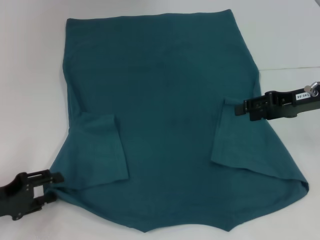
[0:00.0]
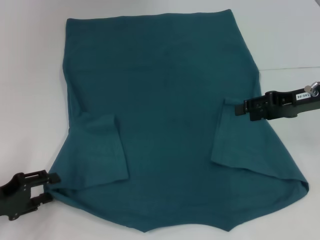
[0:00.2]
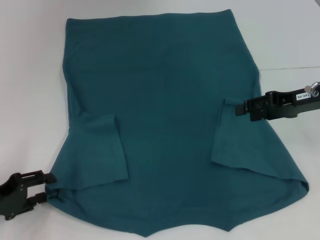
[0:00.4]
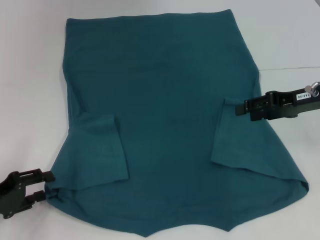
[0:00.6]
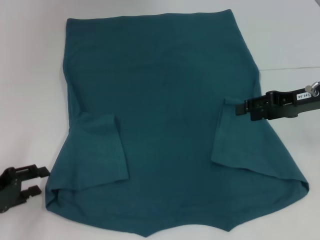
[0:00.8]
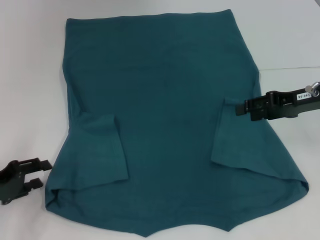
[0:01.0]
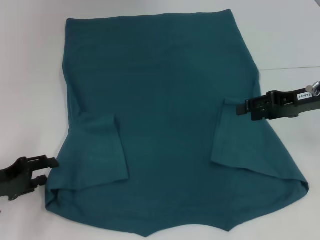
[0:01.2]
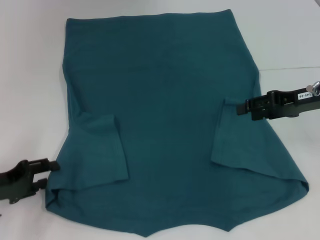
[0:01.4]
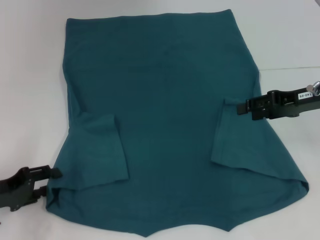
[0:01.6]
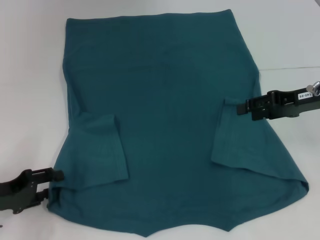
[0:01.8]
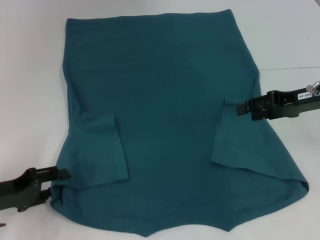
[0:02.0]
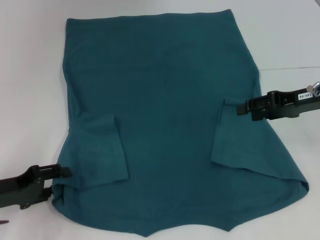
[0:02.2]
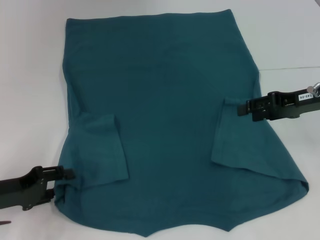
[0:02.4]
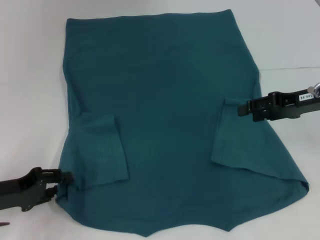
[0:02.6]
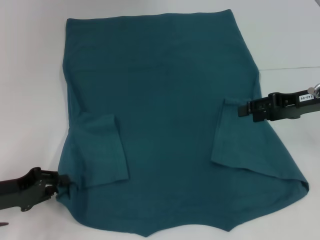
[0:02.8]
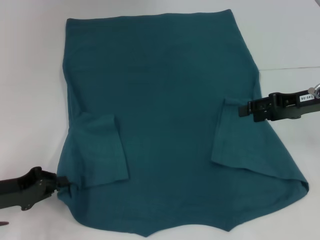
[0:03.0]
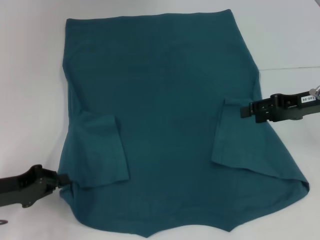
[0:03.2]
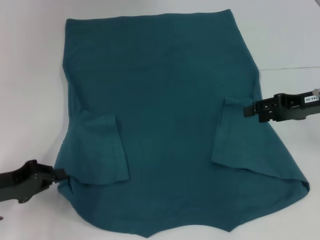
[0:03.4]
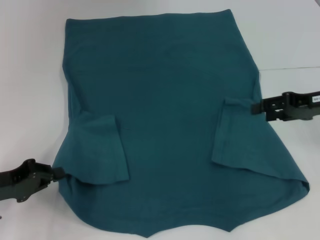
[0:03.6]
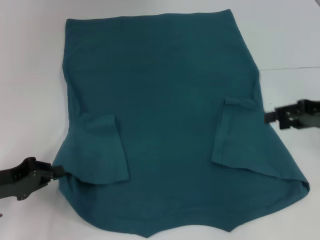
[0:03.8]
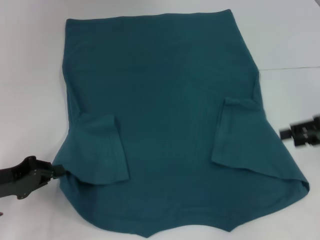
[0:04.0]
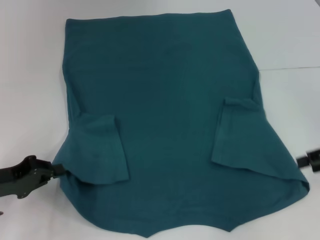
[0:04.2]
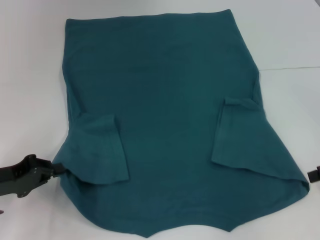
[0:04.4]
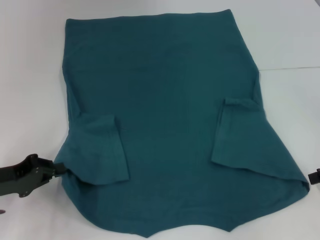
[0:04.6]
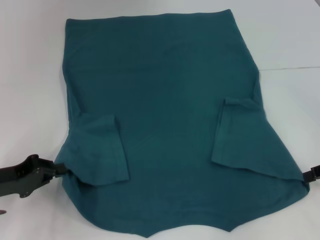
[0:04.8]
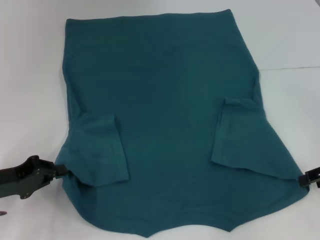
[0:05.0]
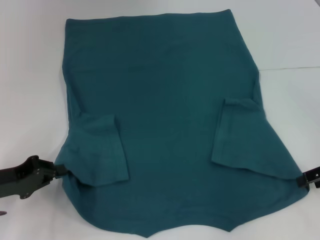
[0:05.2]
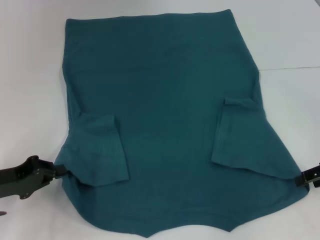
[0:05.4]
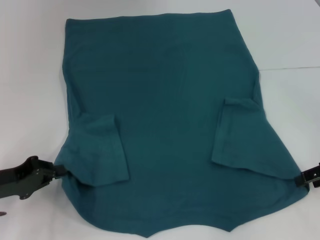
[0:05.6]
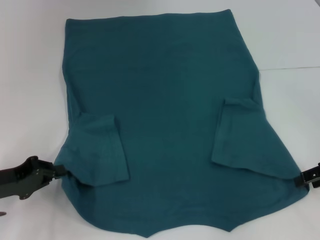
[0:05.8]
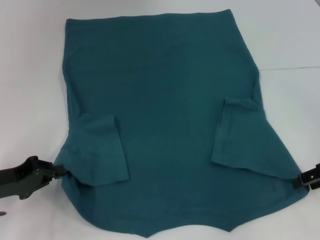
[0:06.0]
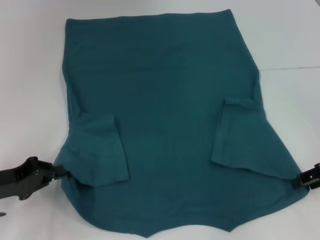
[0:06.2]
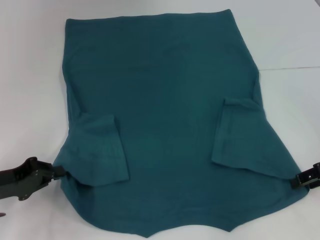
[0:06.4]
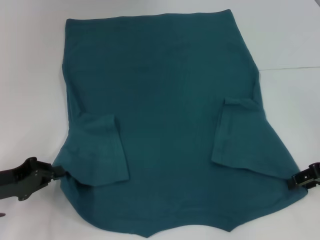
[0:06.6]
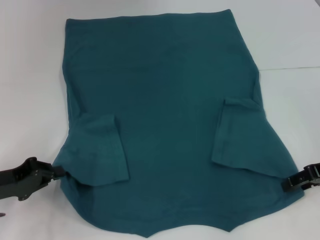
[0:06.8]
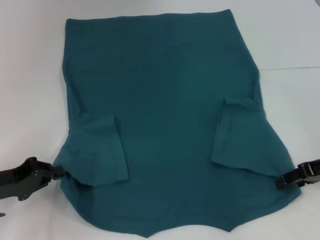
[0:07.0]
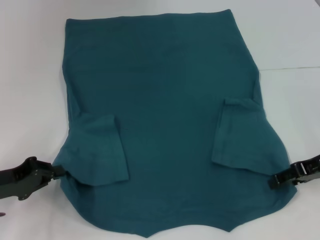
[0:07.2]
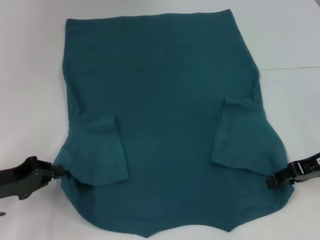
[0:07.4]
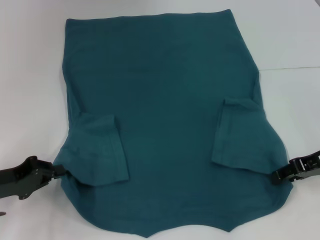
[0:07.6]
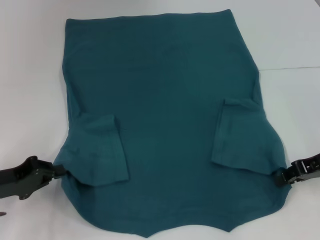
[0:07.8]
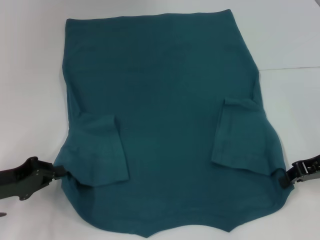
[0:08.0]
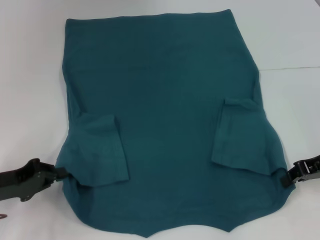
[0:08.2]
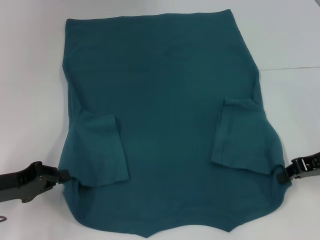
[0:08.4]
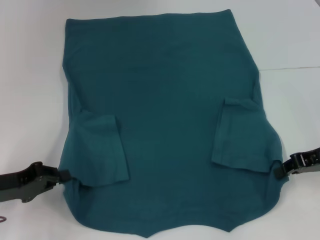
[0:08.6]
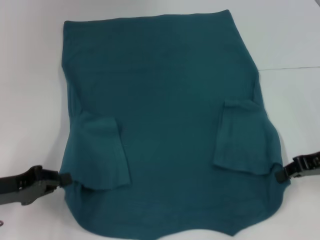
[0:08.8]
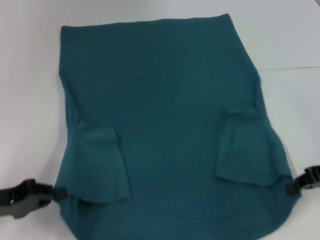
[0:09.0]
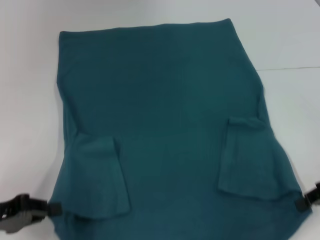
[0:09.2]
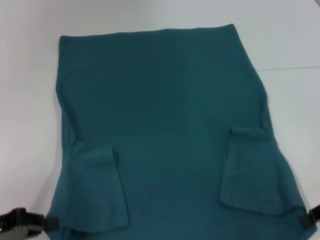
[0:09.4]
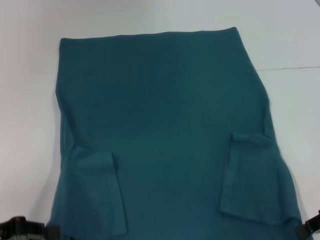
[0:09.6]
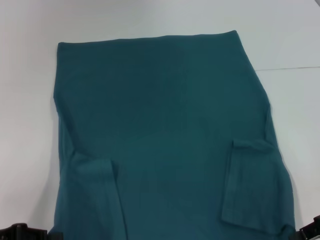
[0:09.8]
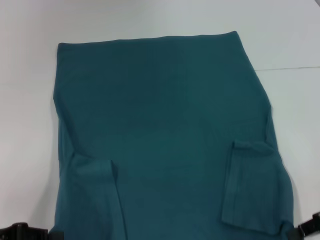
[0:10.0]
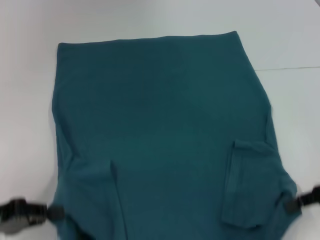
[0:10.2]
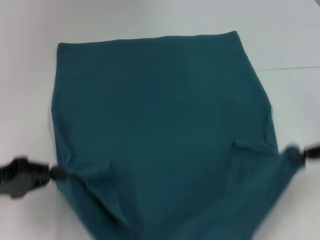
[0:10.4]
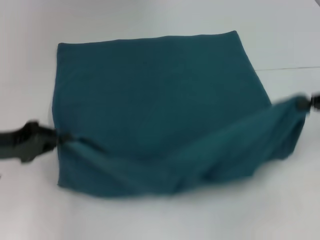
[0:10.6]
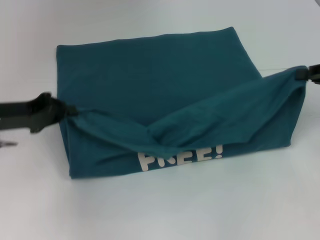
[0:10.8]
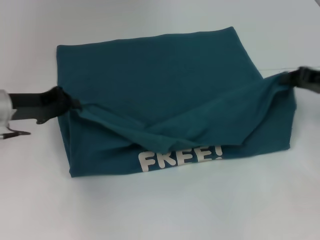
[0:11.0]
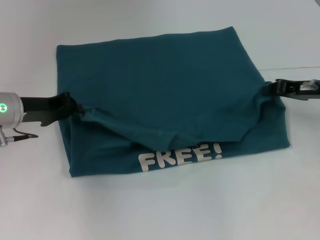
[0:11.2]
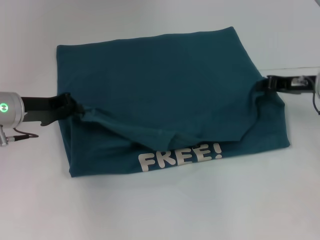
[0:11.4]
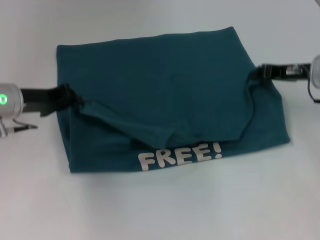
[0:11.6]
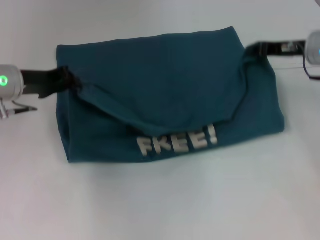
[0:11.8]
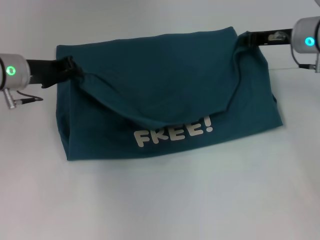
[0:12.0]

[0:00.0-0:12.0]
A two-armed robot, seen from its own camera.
Step, 0.0 to 3.0 s: Grab the bottom left corner with your left hand.
Step, 3.2 to 8.4 s: Grab the bottom right corner with your right hand.
0.0 to 3.0 s: The grippers stay close to where they were, moving slightly.
3.0 to 4.4 s: The right gripper heads to the right and backward, covering about 10 cm.
4.4 to 6.0 s: The grippers stay close to where they were, moving slightly.
6.0 to 7.6 s: The grippers stay close to where they were, moving slightly.
7.6 to 9.0 s: The right gripper closes.
9.0 to 10.4 s: There are only small adjustments of the grippers.
10.4 to 12.0 s: The right gripper travels forward and to the left by about 20 cm, while the left gripper is displaced forward and to the right by roughly 20 cm.

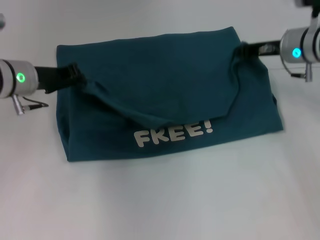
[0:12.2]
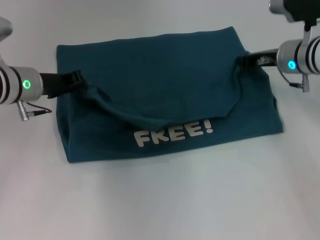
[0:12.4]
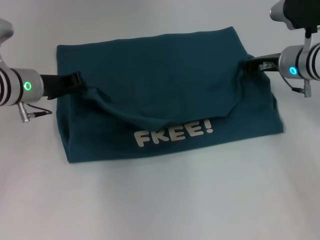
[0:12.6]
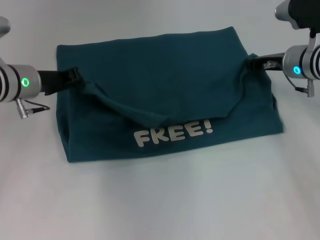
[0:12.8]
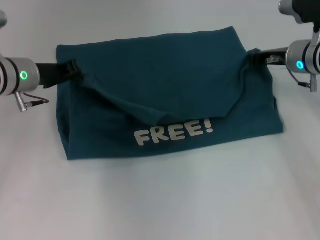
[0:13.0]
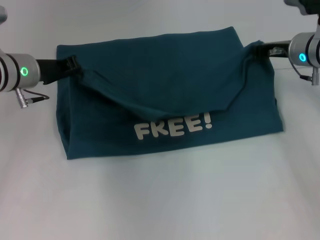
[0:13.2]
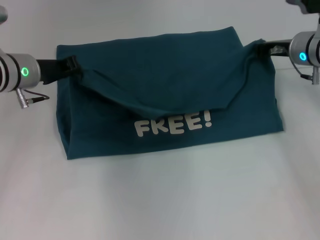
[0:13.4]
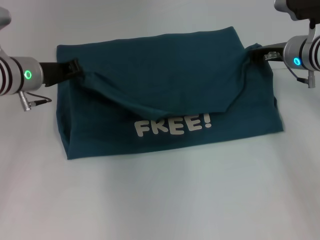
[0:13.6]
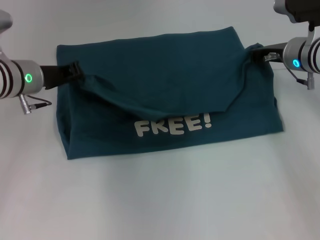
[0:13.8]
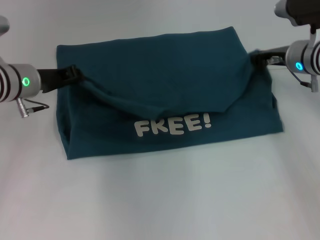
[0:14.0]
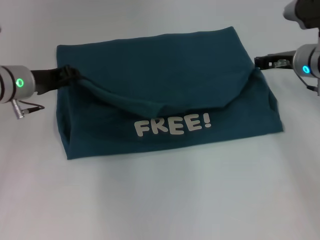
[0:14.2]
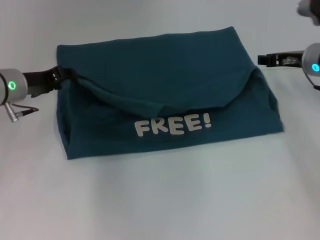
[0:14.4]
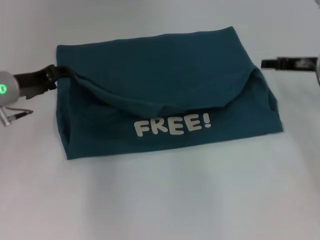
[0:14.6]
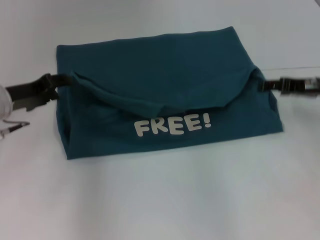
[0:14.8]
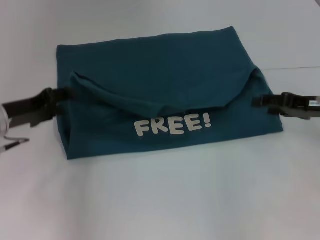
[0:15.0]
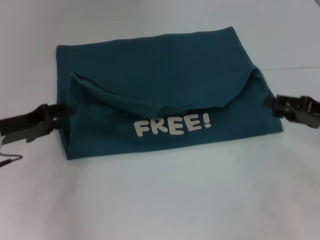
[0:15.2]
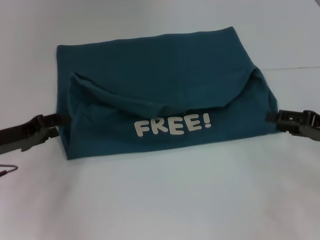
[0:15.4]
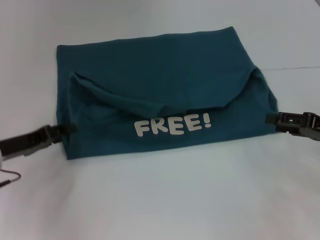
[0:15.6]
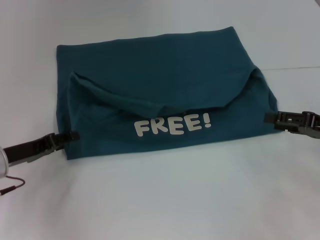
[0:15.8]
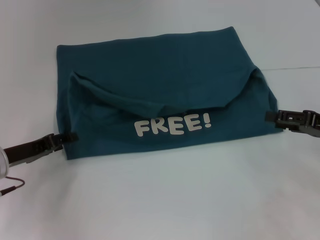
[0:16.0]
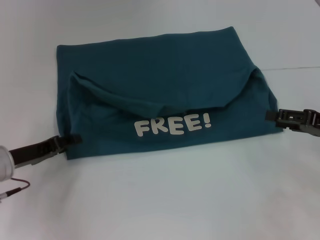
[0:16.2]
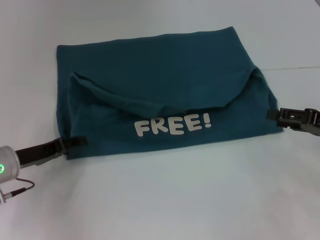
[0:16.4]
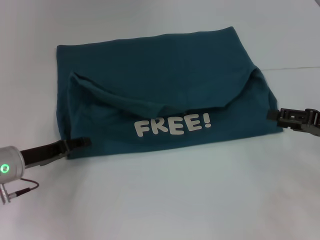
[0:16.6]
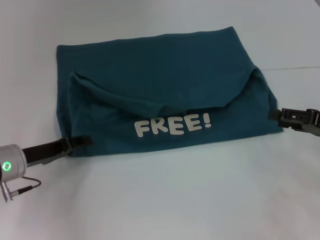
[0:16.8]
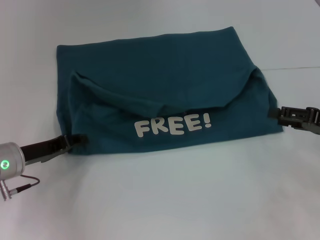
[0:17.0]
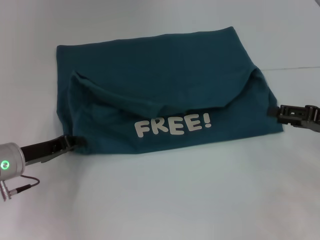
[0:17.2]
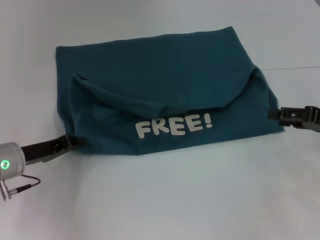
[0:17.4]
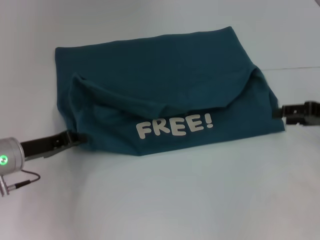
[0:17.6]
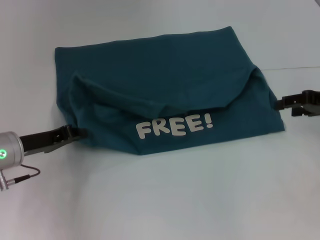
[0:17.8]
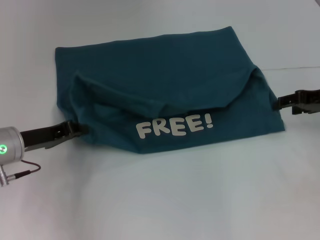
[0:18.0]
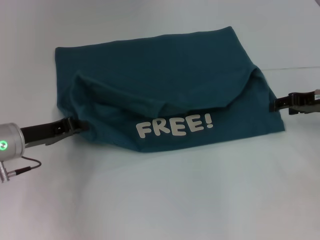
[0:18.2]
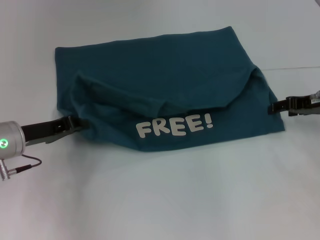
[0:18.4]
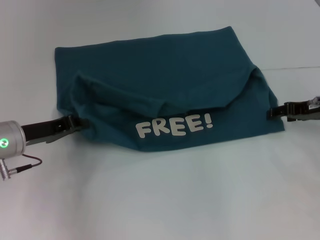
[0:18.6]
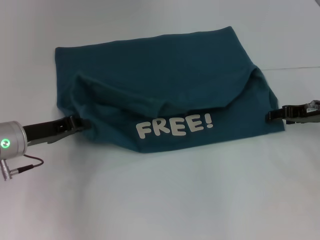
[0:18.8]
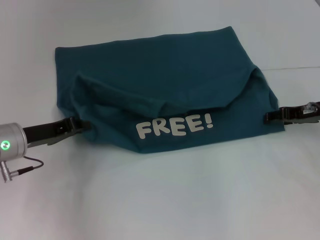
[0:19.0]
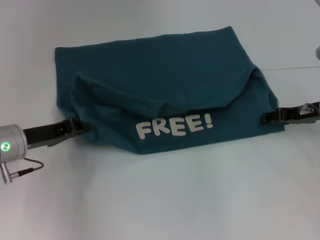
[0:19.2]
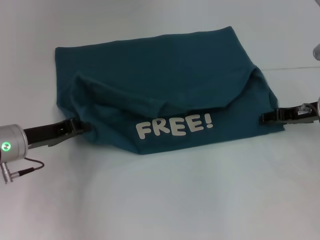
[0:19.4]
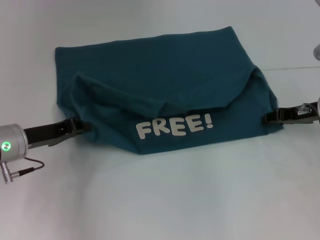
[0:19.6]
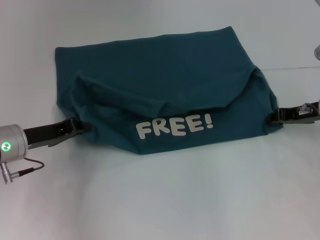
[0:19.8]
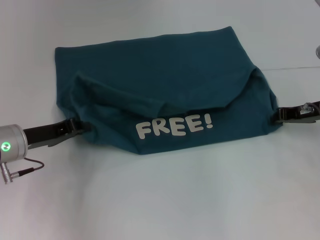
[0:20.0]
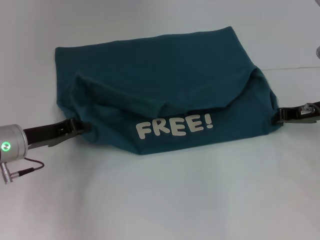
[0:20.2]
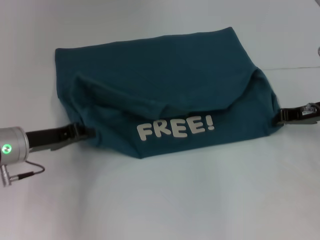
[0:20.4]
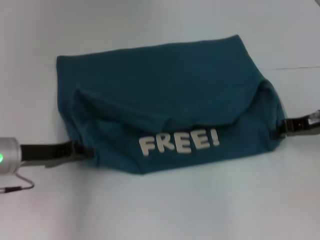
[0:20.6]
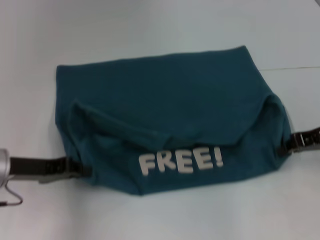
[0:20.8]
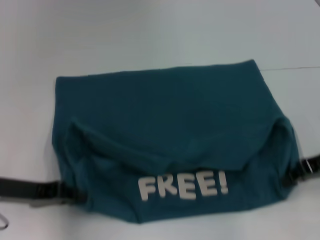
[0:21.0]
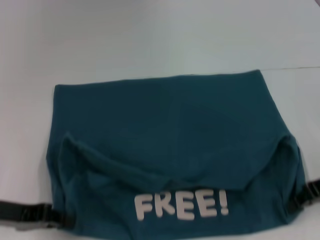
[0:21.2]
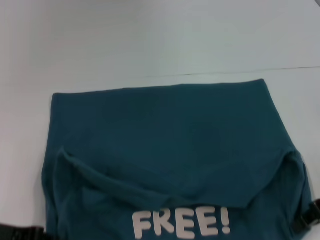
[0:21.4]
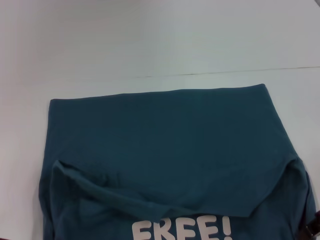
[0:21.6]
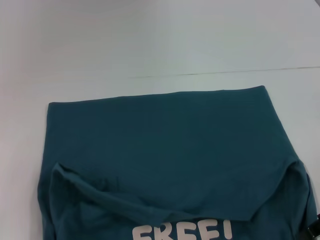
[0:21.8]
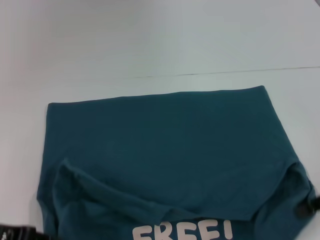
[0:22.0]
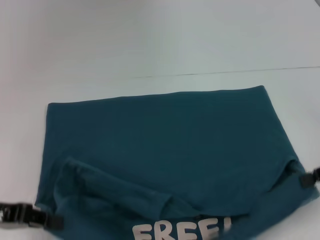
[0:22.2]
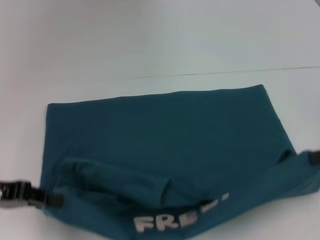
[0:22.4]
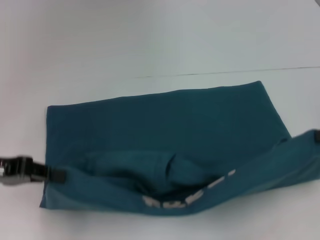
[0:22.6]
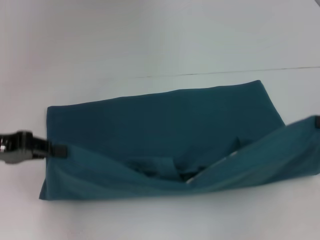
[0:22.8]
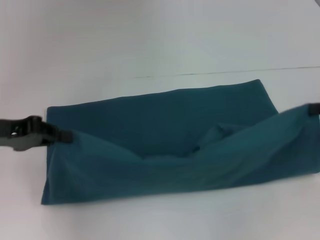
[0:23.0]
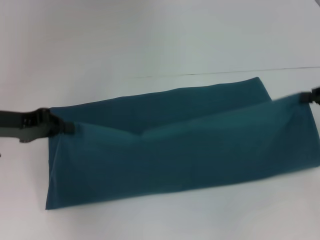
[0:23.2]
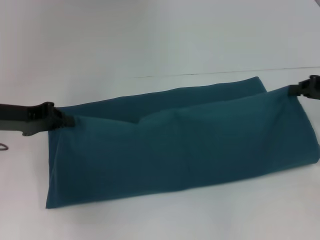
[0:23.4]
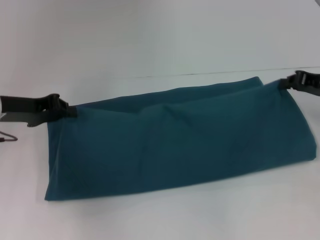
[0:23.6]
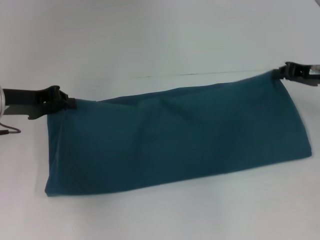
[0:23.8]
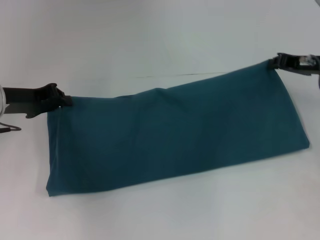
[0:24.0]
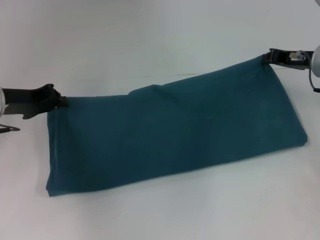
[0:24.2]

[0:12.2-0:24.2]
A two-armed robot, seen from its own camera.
Step, 12.2 to 14.4 s: Fold the clothes to the left.
Step, 12.2 to 14.4 s: Fold the clothes to the right.
Step, 14.6 to 21.2 s: Pull the clothes with your left hand.
Step, 14.6 to 21.2 s: Pull the clothes with your right hand.
12.2 to 13.8 s: There are only small adjustments of the grippers.
13.8 to 15.2 s: The left gripper shifts roughly 10 cm backward and to the left, and opens its fingers, while the right gripper heads backward and to the right, covering roughly 15 cm, and opens.
15.2 to 16.6 s: The left gripper moves some 5 cm.
16.6 to 18.2 s: The right gripper travels forward by approximately 10 cm; the left gripper closes.
18.2 to 19.8 s: The grippers move only a little.
19.8 to 21.2 s: Both grippers move backward, roughly 10 cm. The right gripper closes up.
21.2 to 22.6 s: The right gripper is displaced to the right by about 5 cm. The left gripper travels upward by some 5 cm.
22.6 to 24.2 s: The right gripper is displaced forward and to the left by some 15 cm, while the left gripper is displaced forward by approximately 10 cm.
